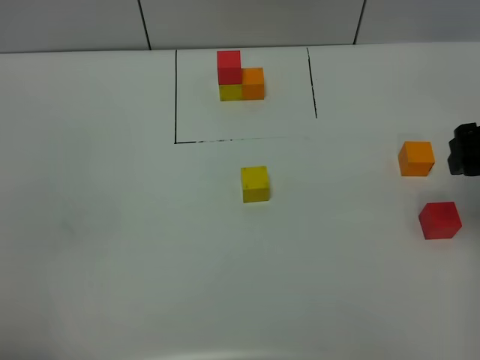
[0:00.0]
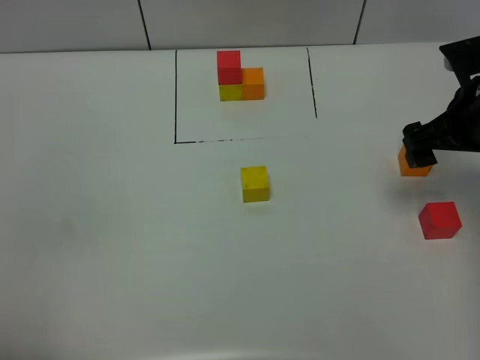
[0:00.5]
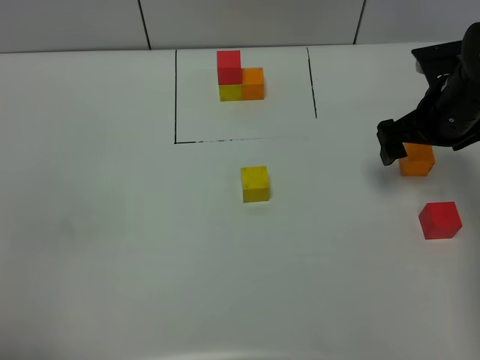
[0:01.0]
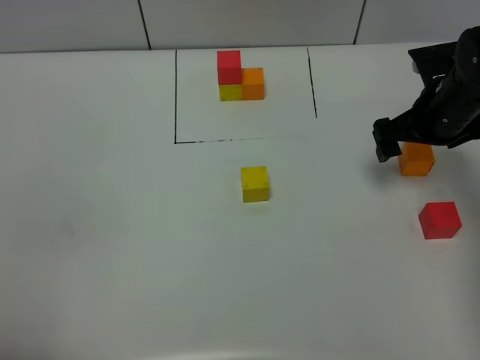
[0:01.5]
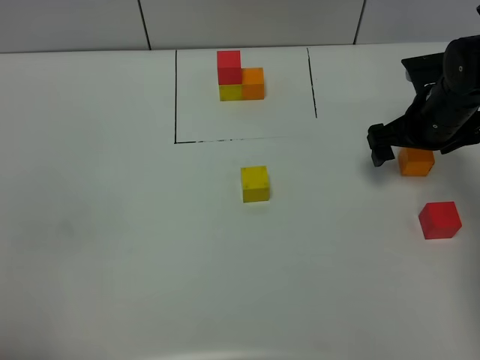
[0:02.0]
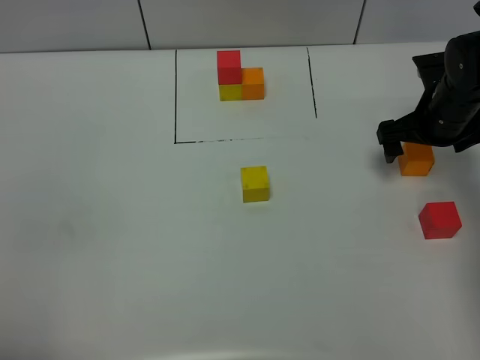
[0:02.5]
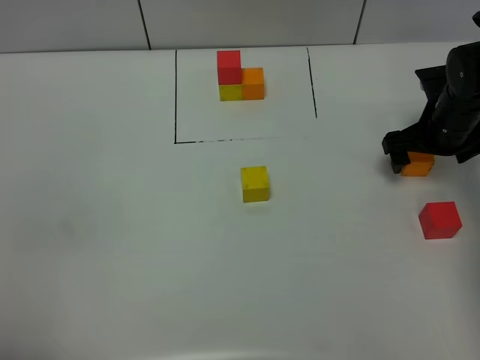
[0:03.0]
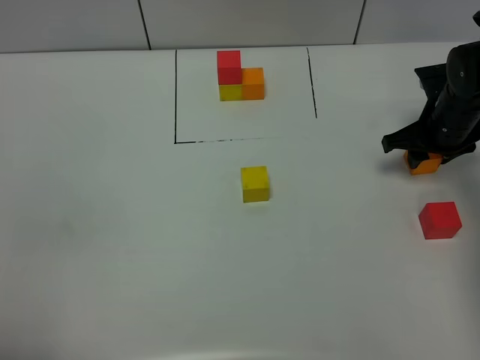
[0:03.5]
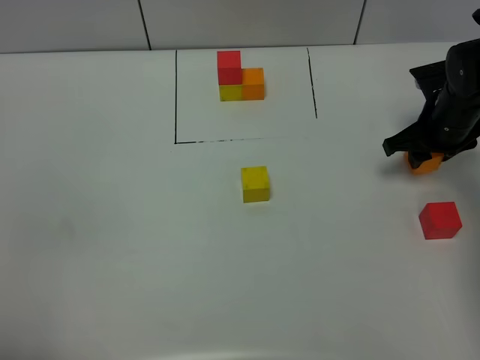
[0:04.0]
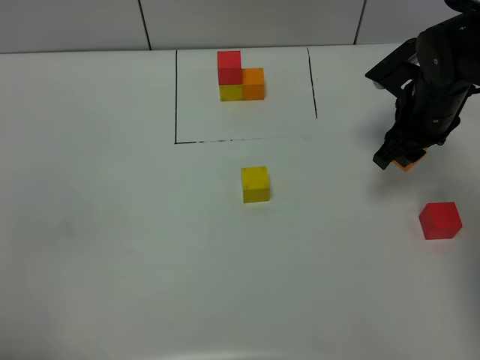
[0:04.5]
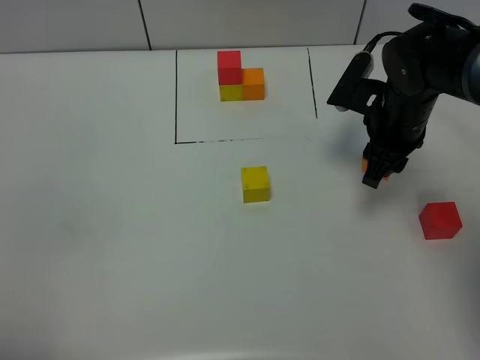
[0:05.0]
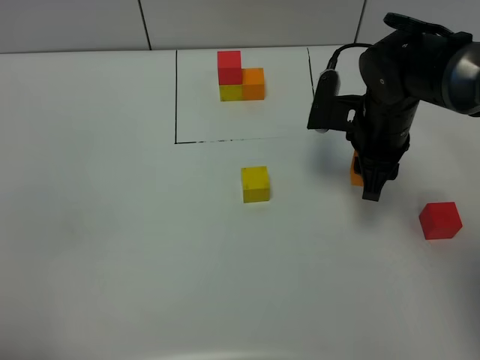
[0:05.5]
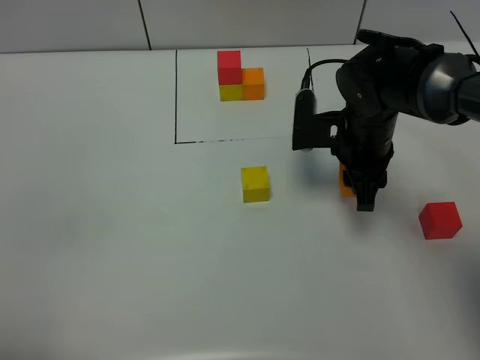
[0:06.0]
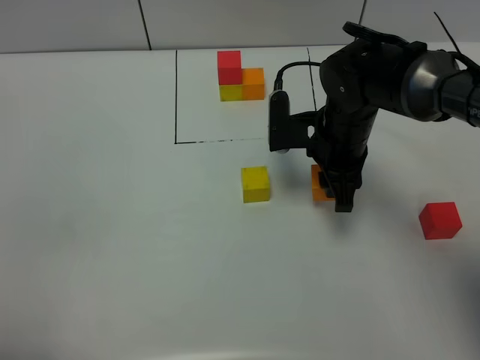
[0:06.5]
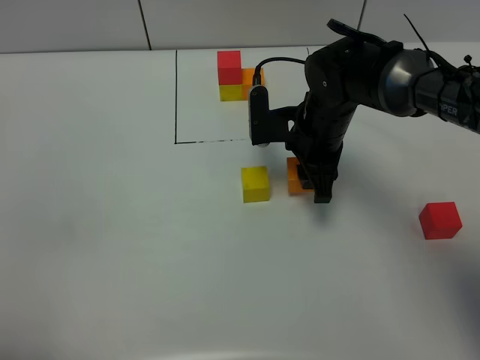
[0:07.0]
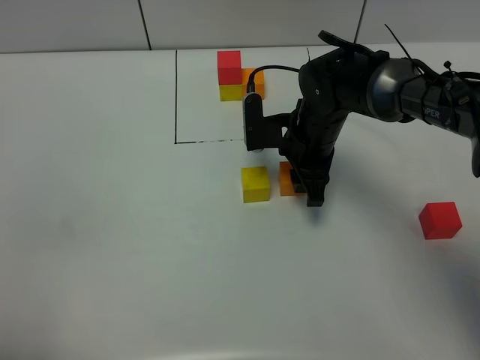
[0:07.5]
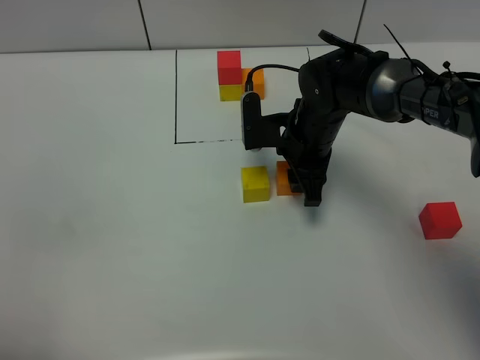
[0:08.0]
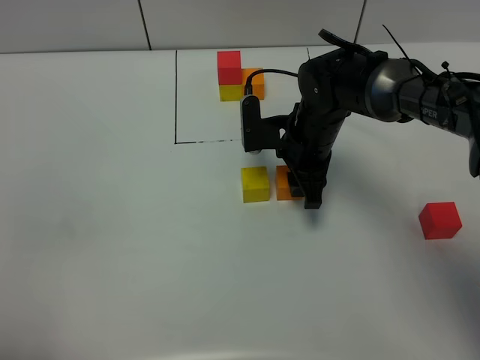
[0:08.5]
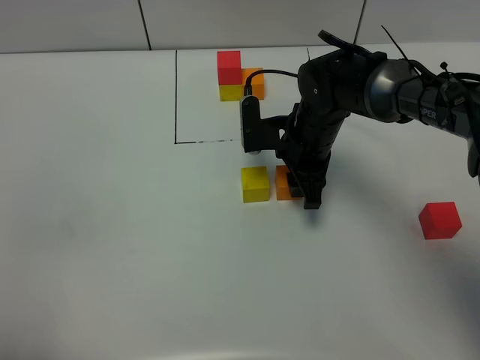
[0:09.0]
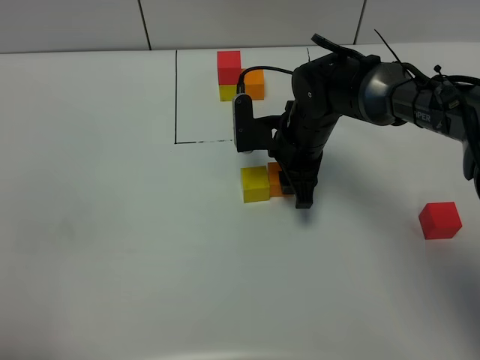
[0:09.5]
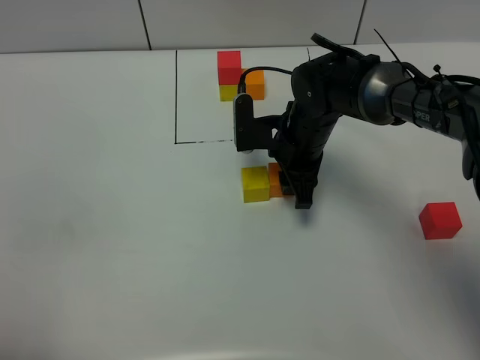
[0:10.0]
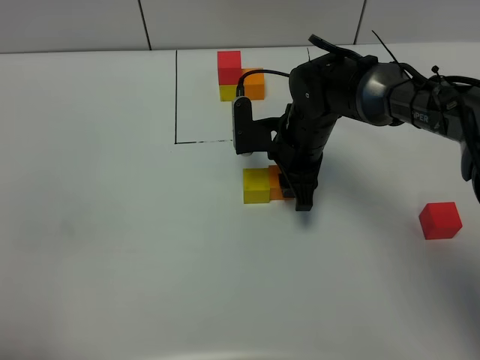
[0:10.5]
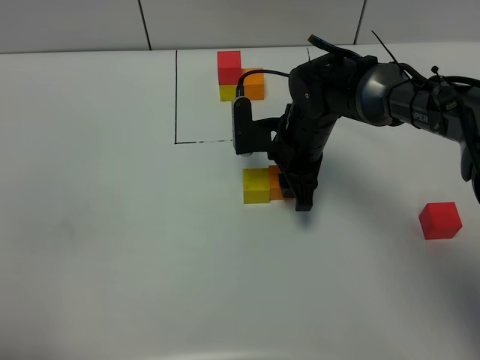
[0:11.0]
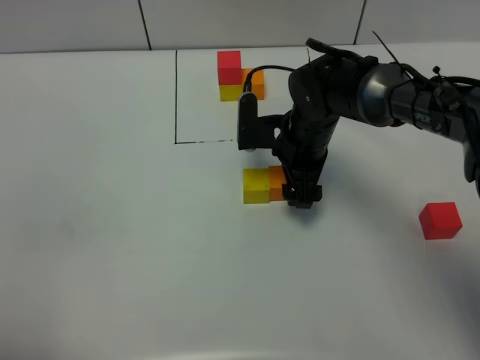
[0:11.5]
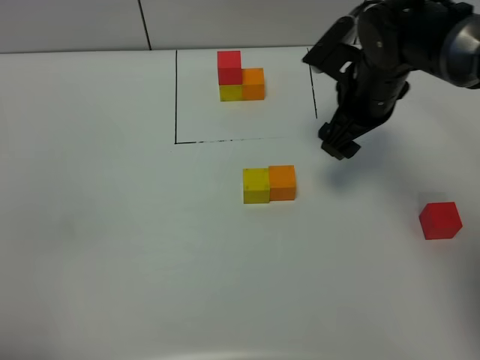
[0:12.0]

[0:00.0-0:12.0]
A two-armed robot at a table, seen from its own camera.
Task of the whole recording: According to the building block template in front, assemble the scattered blocks together.
Step, 0:00.0 to 0:11.5: Put the orange build block on the right of the yellow build block.
0:00.0 to 0:02.0: The right gripper heads forward and downward, covering some 15 cm.
0:02.0 to 0:04.0: The right gripper closes up.
0:04.0 to 0:06.0: The right gripper goes roughly 15 cm to the left.
0:06.0 to 0:08.0: The right gripper is displaced to the left by approximately 5 cm.
0:08.0 to 0:10.0: Both grippers stay put.
0:10.0 to 0:12.0: The right gripper travels to the right and upward by roughly 10 cm, and opens its fingers.

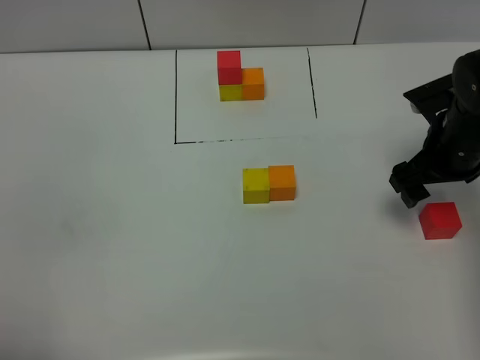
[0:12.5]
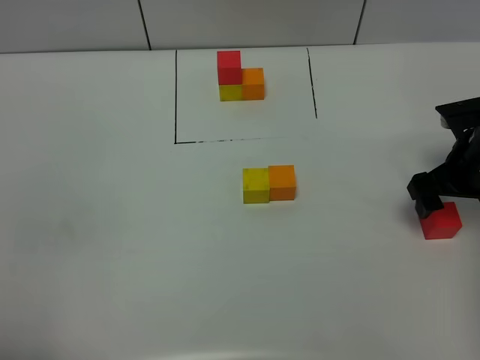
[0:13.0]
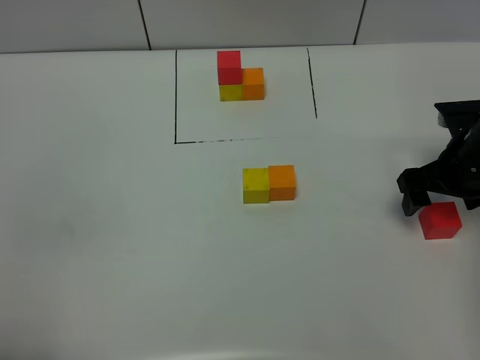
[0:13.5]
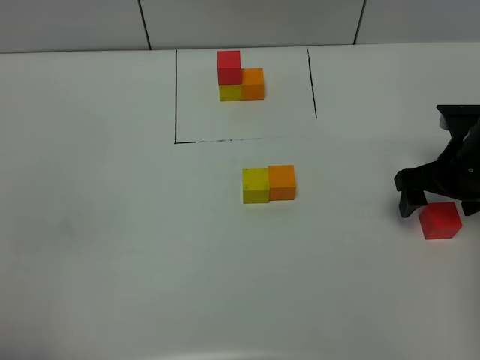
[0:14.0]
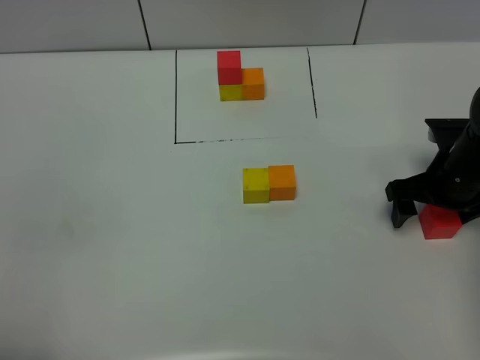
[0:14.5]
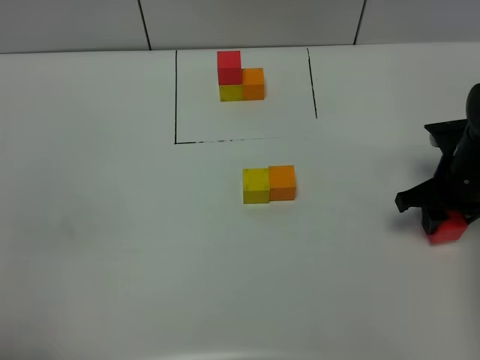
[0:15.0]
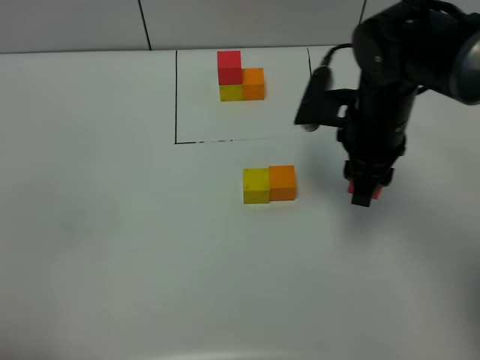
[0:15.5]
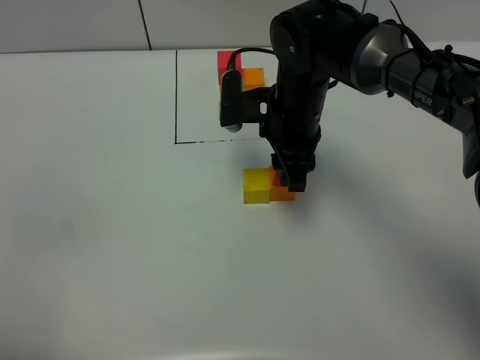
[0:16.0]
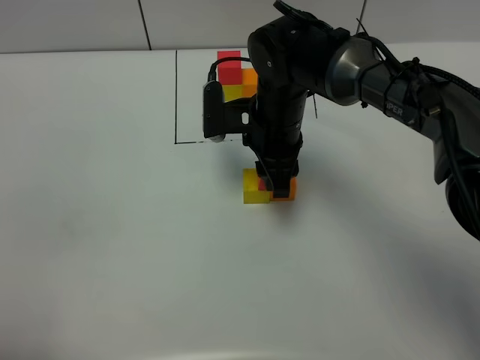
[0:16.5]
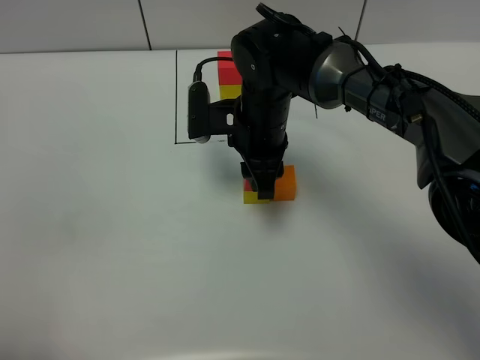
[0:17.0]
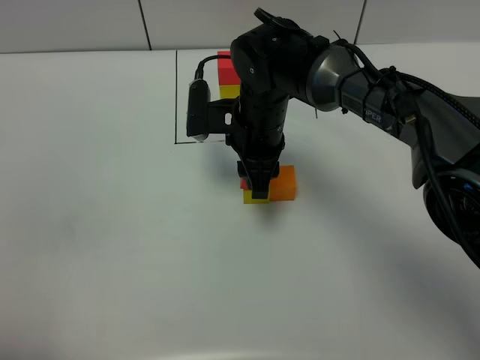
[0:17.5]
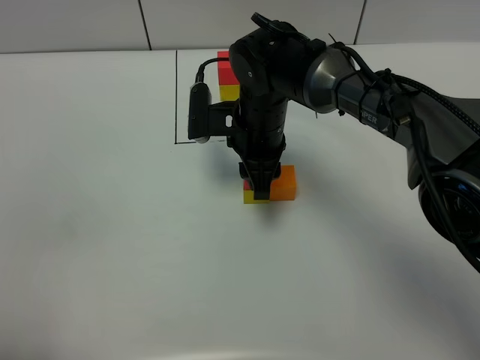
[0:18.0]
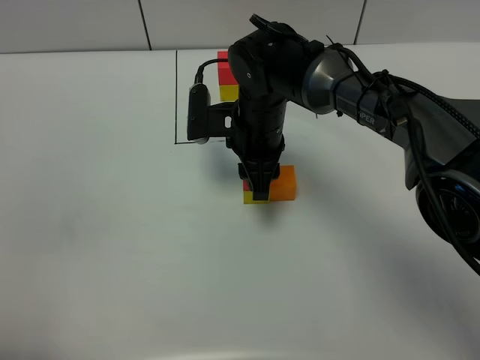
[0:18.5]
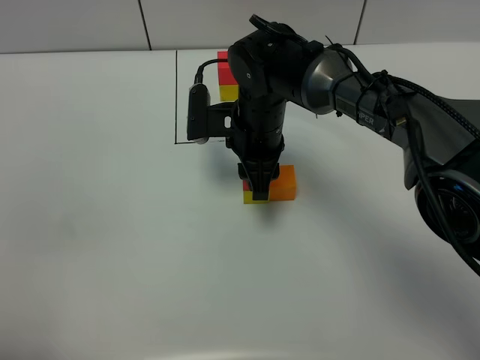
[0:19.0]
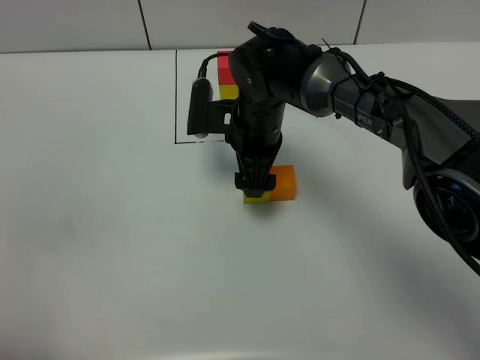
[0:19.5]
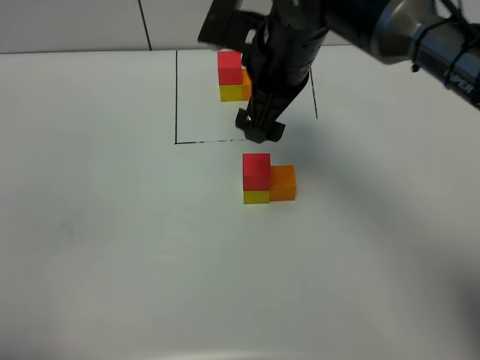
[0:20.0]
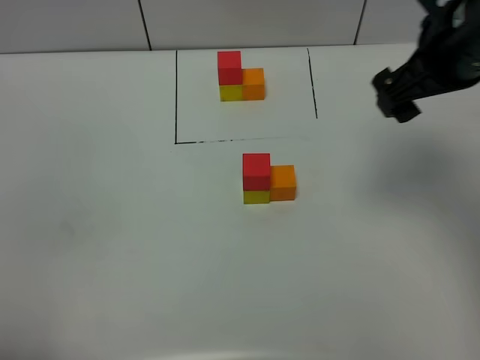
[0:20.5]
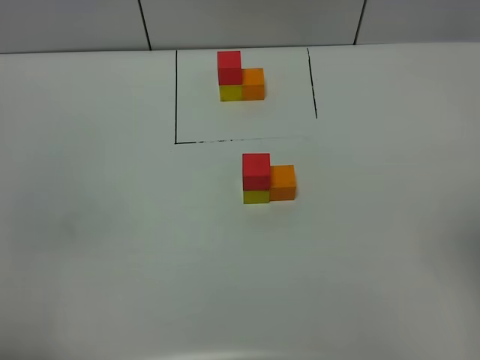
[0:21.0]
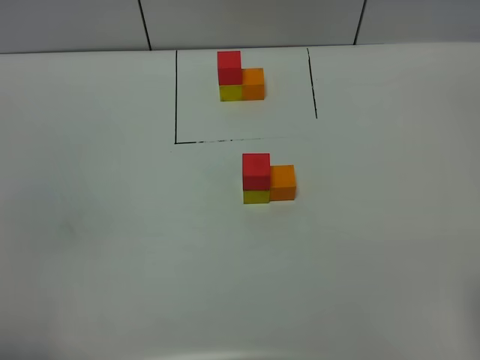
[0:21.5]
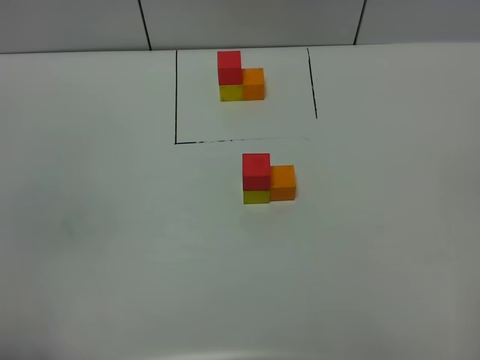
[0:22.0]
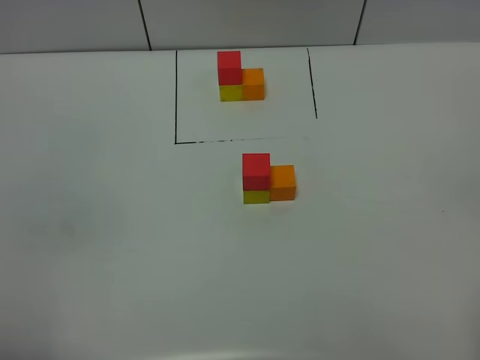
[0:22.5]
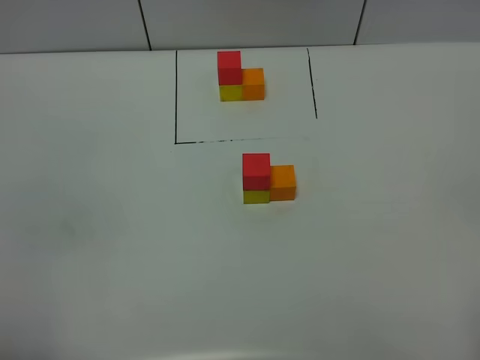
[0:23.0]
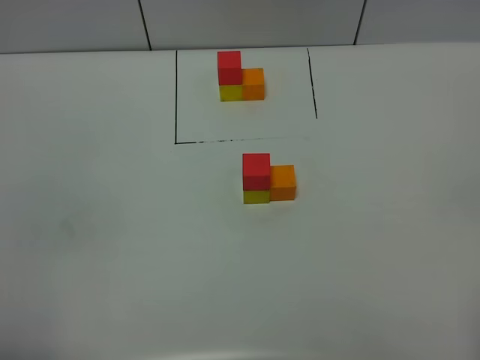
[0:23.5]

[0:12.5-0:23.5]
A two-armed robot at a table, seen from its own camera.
Task of the whole recording: According to the building block template in front, assemble the scattered blocks together.
Step, 0:12.5 to 0:19.5: Put the red build block on the yellow build block.
0:12.5 to 0:14.5: The right gripper shifts by approximately 5 cm.
0:14.5 to 0:16.0: The right gripper goes some 20 cm to the left, and closes its fingers.
0:18.0 to 0:20.0: The right gripper travels upward by approximately 10 cm, and opens.
0:20.0 to 0:21.5: The right gripper shifts about 40 cm backward and to the right.

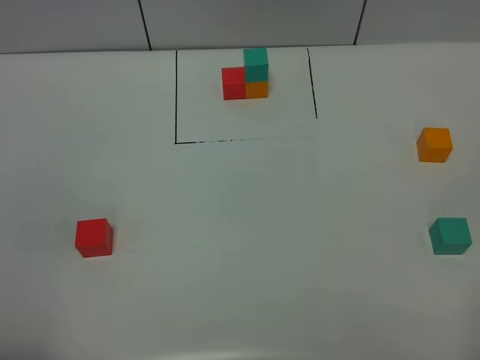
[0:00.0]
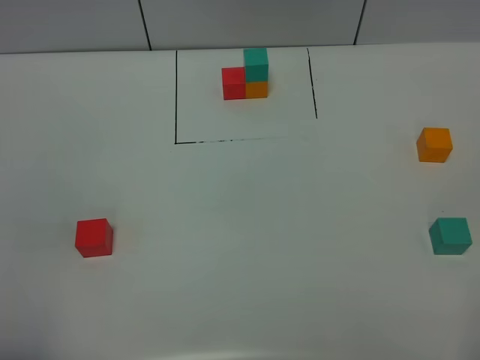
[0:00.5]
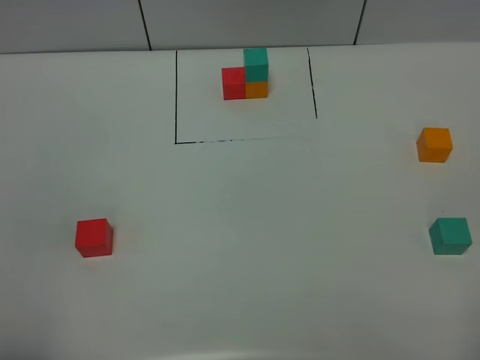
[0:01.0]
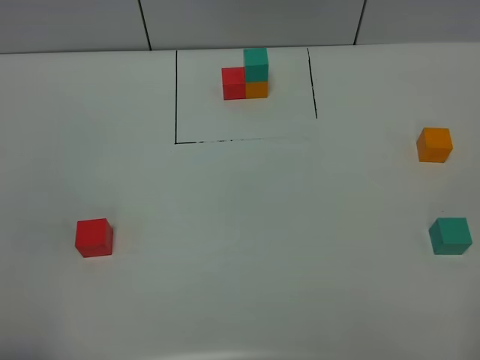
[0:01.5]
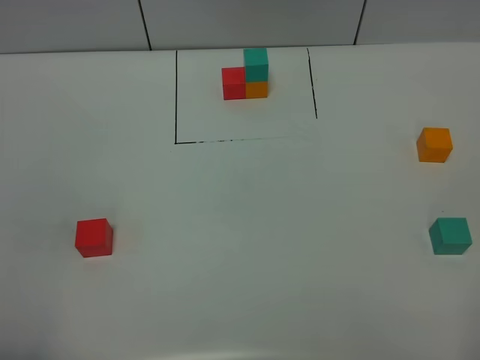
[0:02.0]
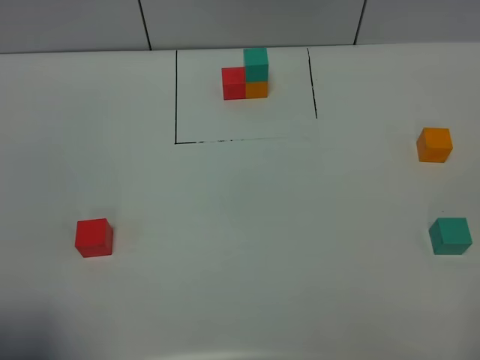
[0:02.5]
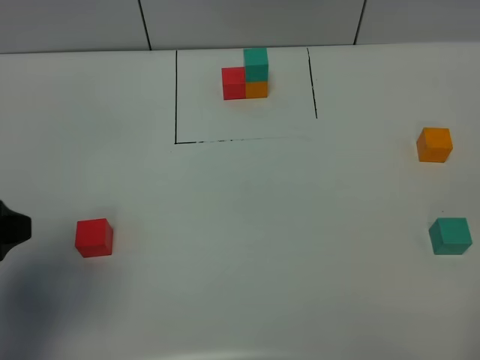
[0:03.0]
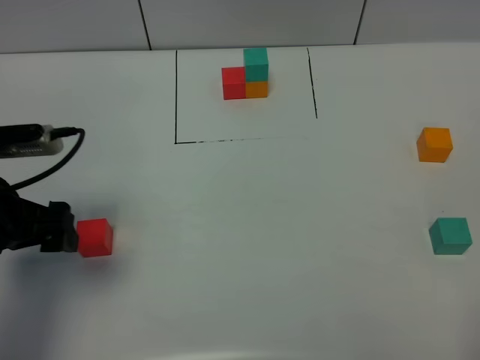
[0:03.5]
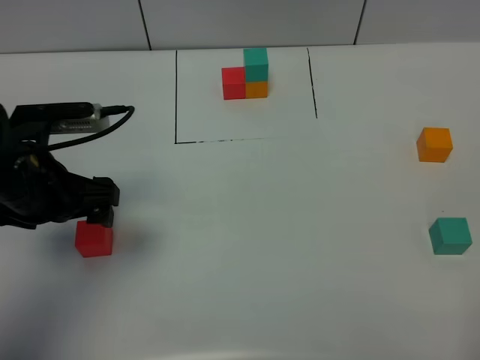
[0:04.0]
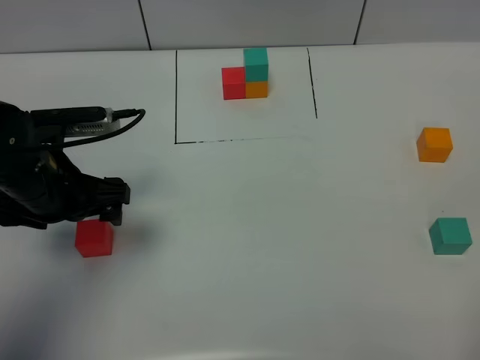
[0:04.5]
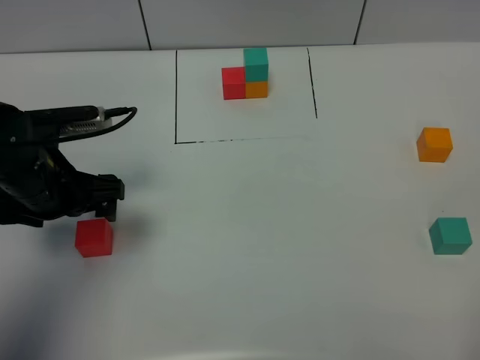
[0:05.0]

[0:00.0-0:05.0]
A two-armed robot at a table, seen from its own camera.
Task of the whole recording: According to the building block template in front, assemble the scattered blocks together.
0:00.0 to 0:02.5: The left gripper travels forward by some 5 cm, and opens.
0:02.5 to 0:05.0: The left gripper is displaced forward and downward by about 25 cm.
